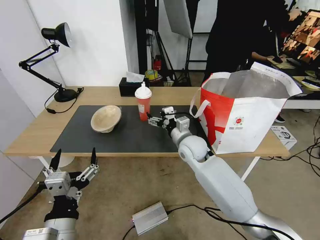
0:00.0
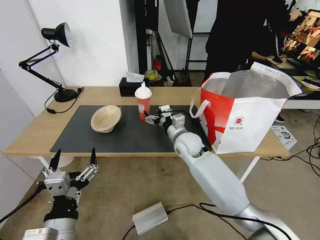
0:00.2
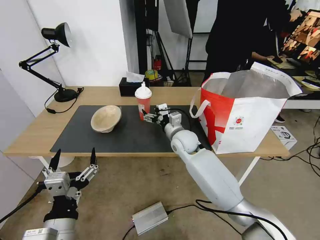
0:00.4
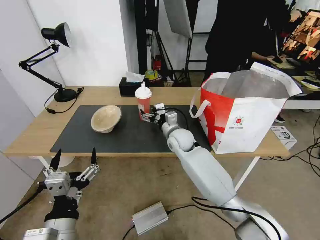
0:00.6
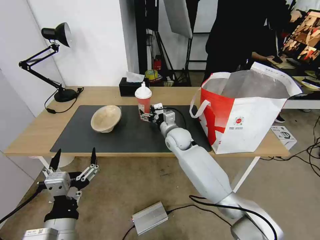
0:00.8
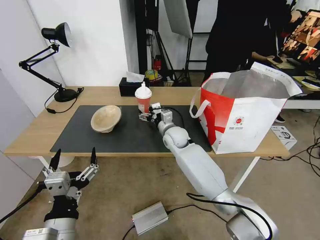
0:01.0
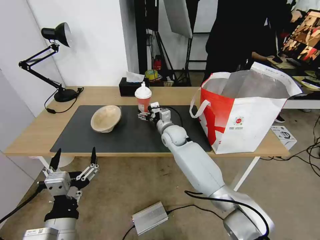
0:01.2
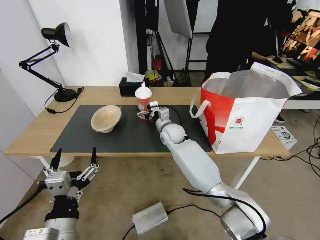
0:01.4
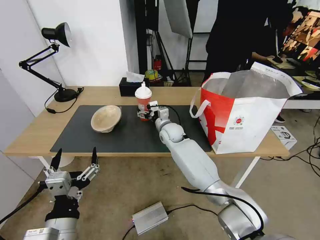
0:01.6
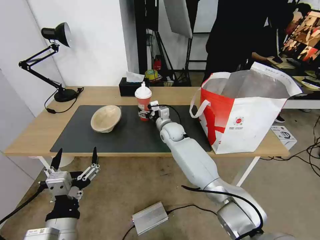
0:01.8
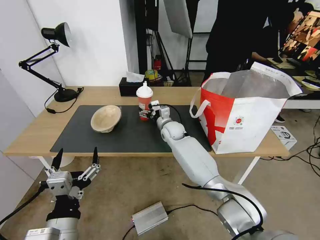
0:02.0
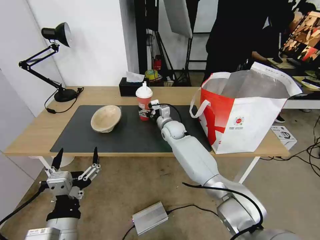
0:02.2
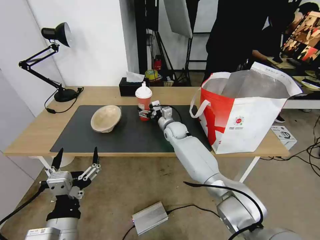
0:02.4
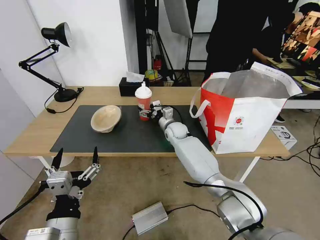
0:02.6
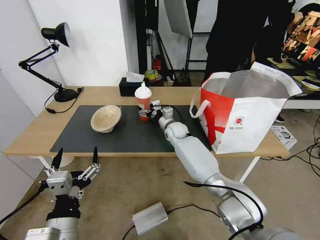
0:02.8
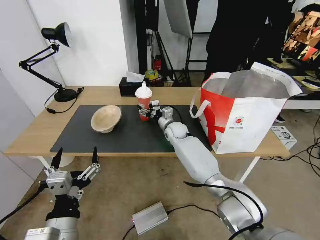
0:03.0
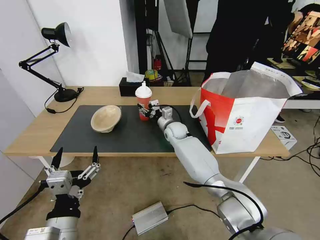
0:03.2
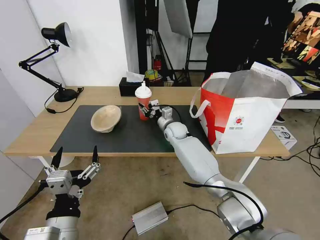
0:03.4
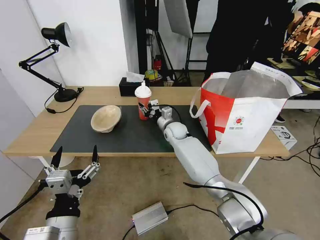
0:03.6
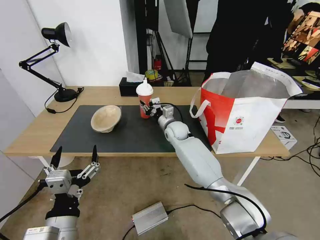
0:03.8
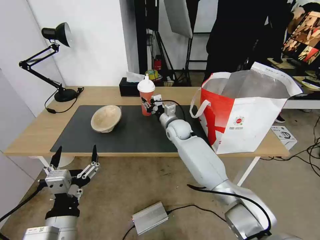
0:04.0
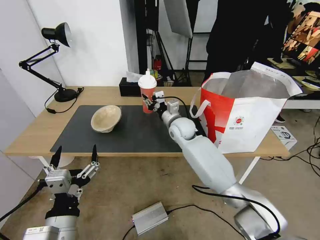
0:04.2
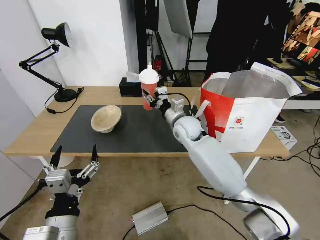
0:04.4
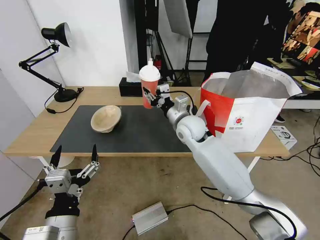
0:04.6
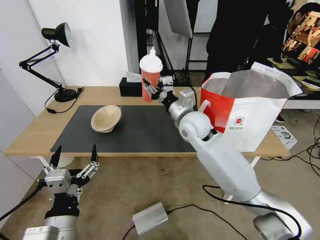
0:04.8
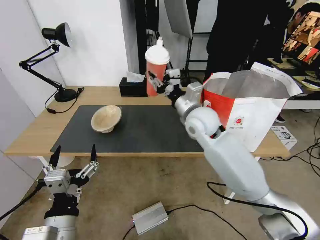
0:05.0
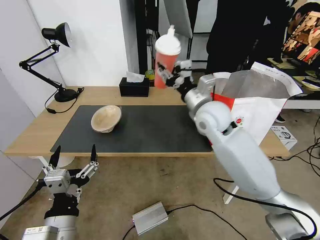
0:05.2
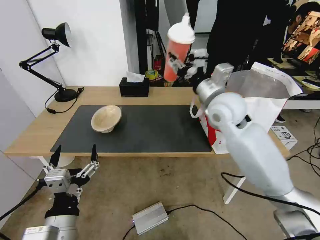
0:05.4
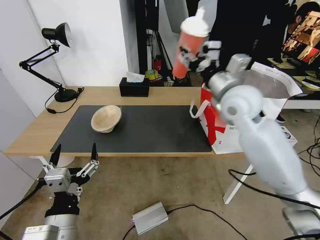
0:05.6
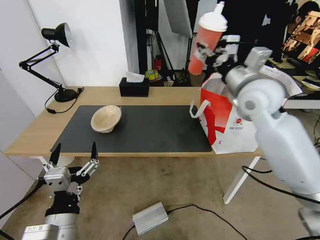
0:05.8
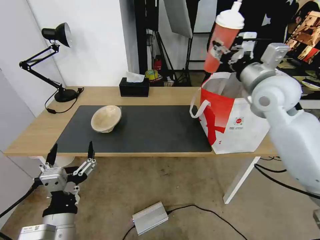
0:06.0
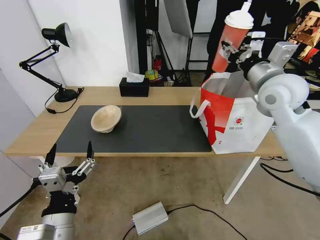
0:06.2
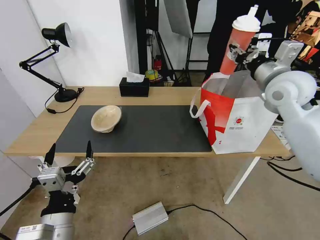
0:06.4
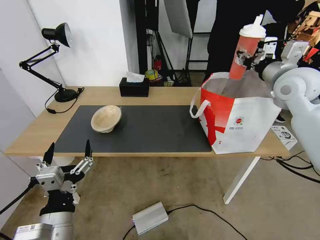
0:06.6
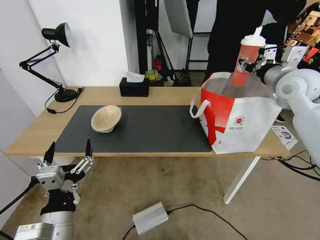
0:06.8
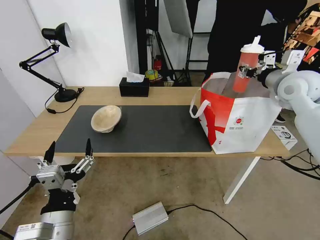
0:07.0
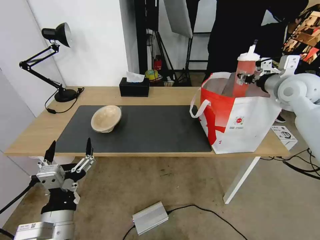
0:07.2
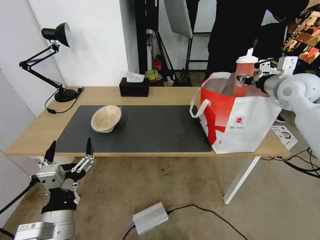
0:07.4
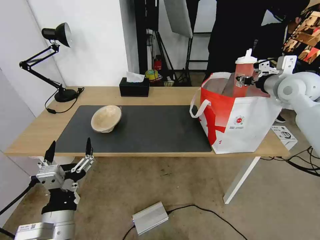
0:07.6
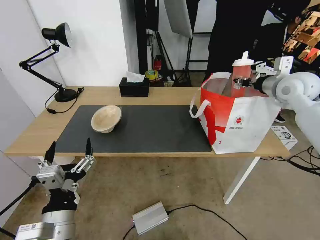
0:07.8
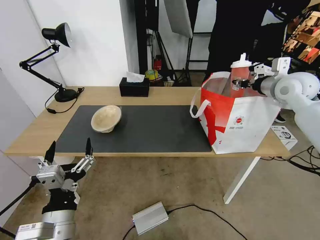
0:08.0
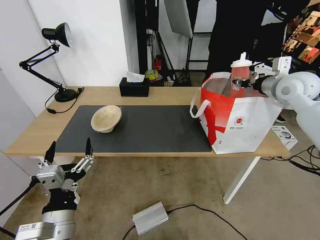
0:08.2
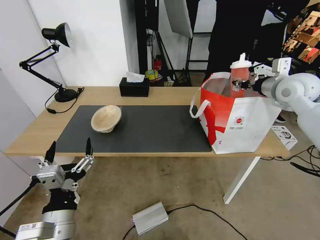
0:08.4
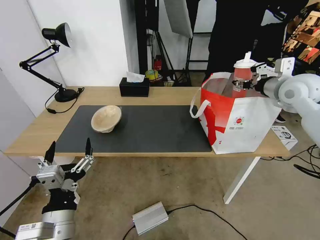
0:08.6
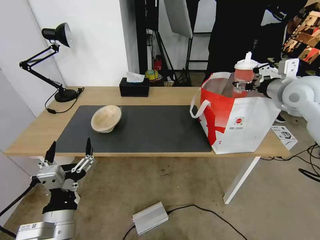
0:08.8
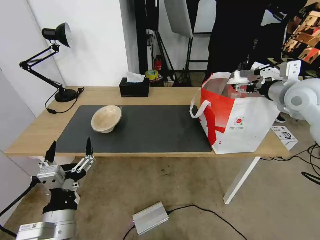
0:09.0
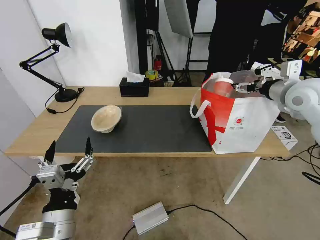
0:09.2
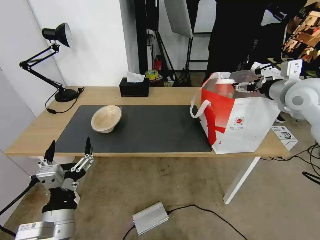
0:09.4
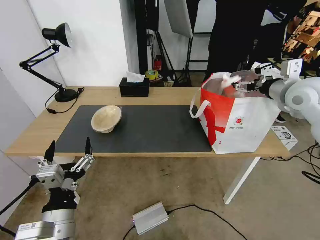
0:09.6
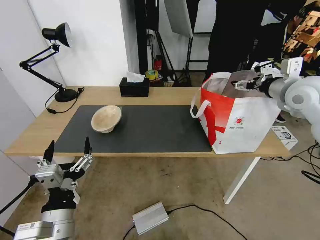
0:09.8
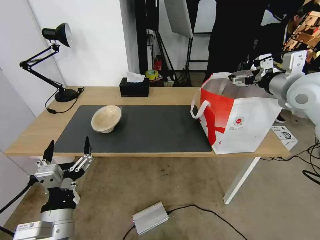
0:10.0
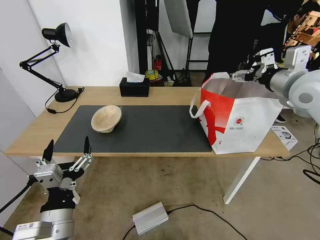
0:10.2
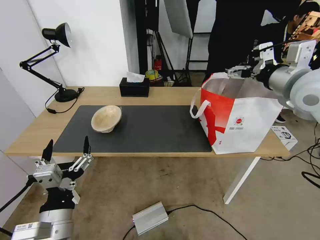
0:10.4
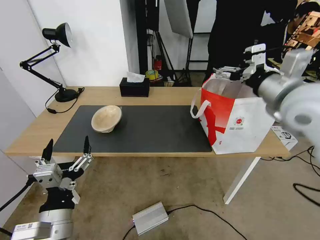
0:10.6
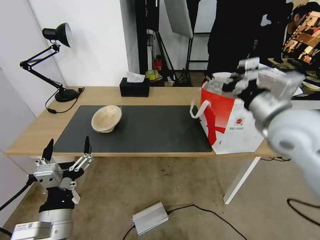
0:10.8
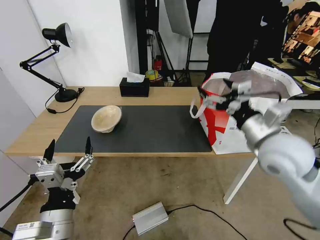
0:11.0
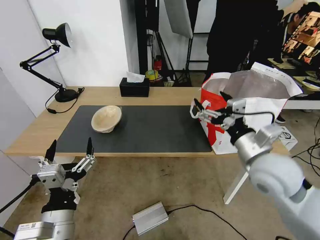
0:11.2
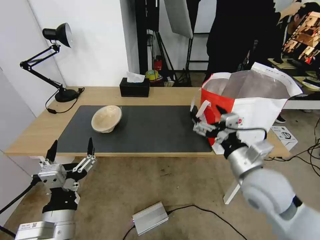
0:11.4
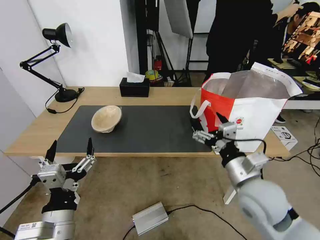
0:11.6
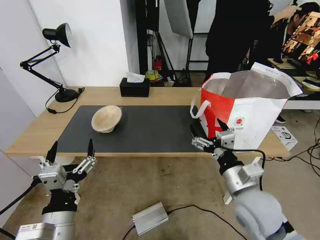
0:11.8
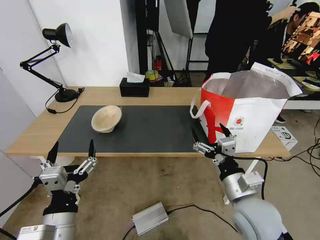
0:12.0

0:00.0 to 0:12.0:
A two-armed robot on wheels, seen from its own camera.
Task of the whole recording: Pick up the trash from the table and place it into the takeout bag.
0:00.0 to 0:01.6: The right gripper heads forward and to the left, covering some 10 cm.
0:01.6 to 0:03.0: The grippers move only a little.
0:03.0 to 0:04.4: The right gripper is displaced upward and backward by approximately 10 cm, and closes.
0:04.4 to 0:06.0: The right gripper goes about 25 cm to the right and upward.
0:06.0 to 0:07.6: The right gripper goes about 15 cm to the right and forward.
0:07.6 to 0:09.0: The right gripper opens up.
0:09.0 to 0:10.4: The right gripper is displaced backward, to the left and upward by about 10 cm.
0:10.4 to 0:12.0: The right gripper moves downward, backward and to the left, approximately 30 cm.

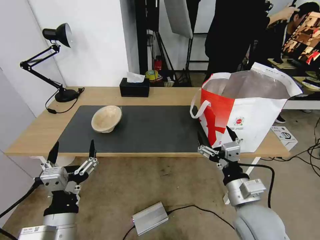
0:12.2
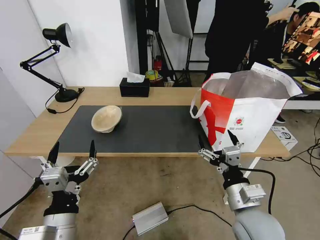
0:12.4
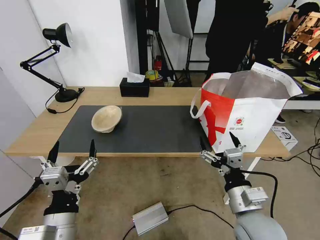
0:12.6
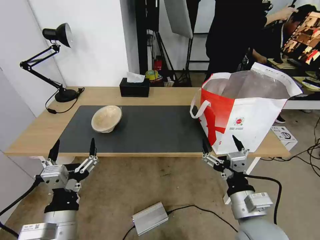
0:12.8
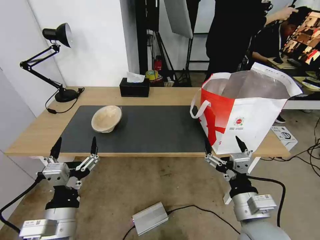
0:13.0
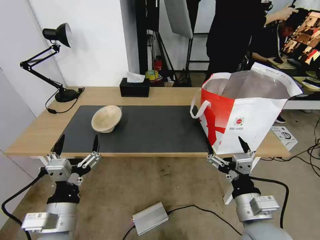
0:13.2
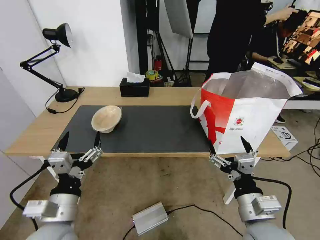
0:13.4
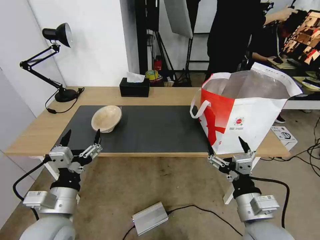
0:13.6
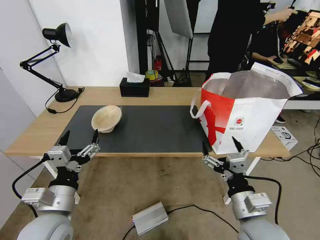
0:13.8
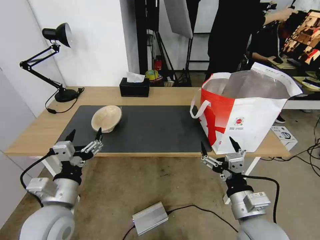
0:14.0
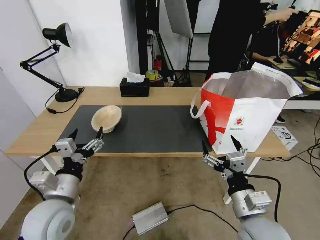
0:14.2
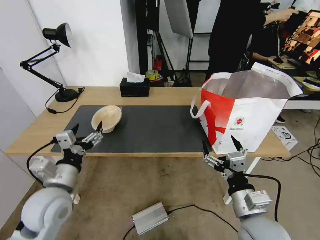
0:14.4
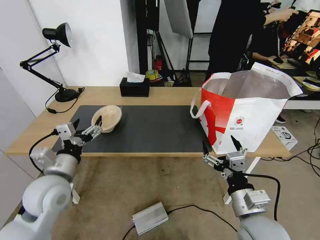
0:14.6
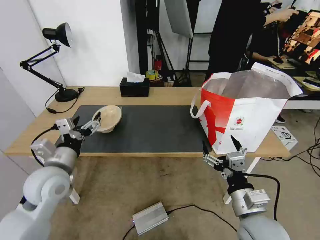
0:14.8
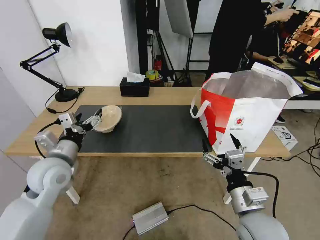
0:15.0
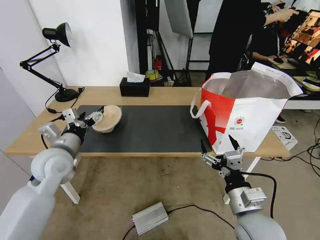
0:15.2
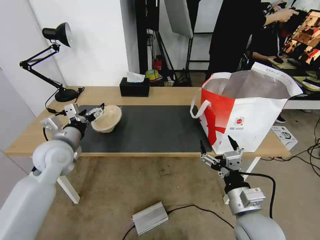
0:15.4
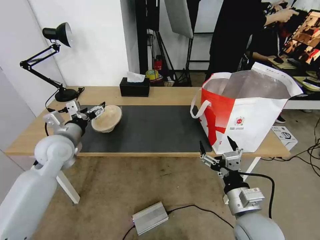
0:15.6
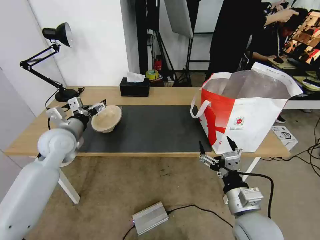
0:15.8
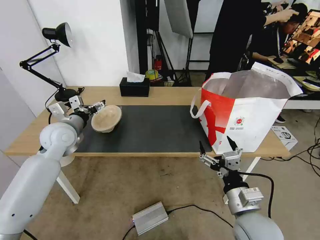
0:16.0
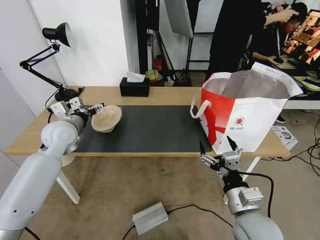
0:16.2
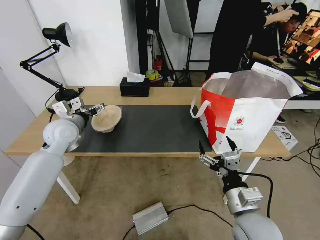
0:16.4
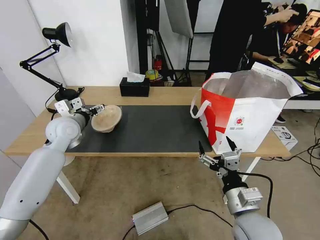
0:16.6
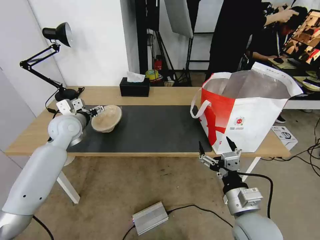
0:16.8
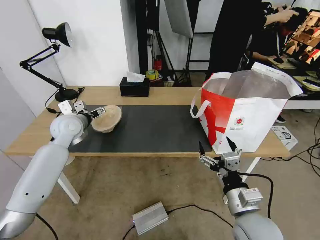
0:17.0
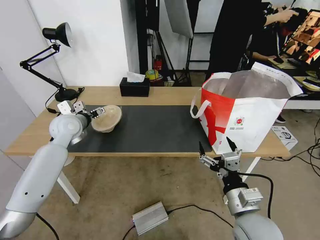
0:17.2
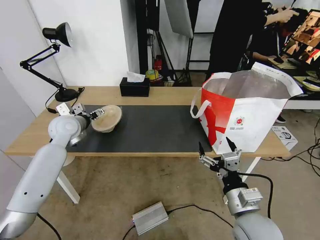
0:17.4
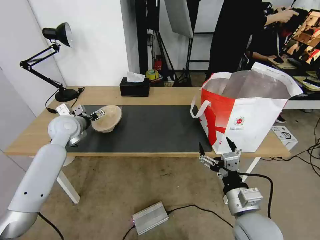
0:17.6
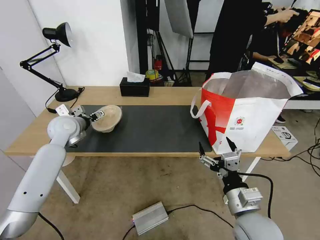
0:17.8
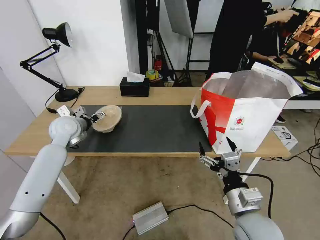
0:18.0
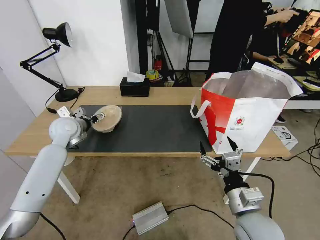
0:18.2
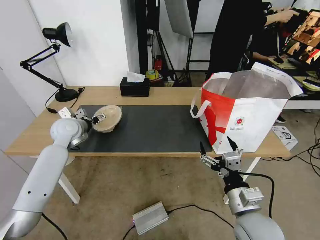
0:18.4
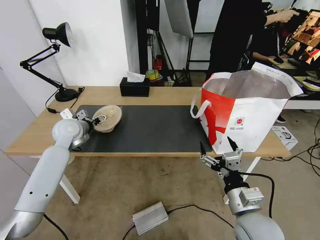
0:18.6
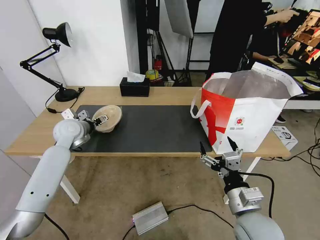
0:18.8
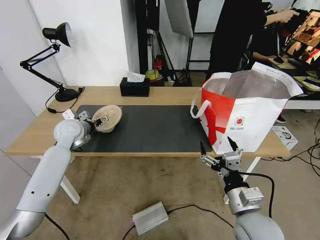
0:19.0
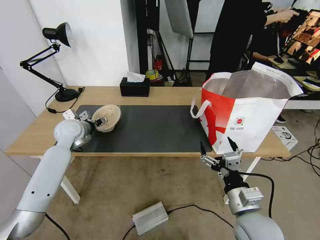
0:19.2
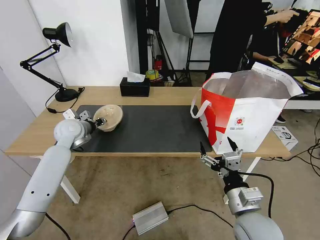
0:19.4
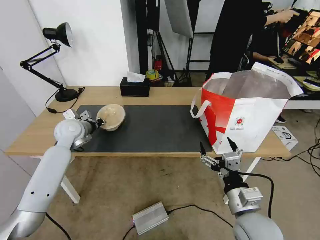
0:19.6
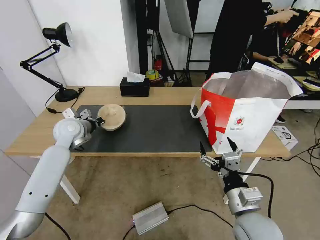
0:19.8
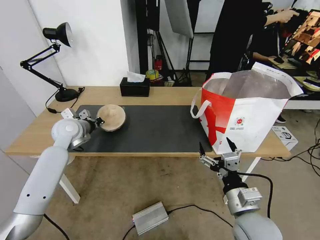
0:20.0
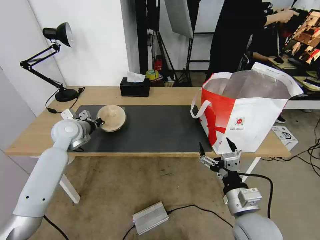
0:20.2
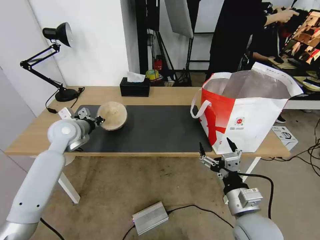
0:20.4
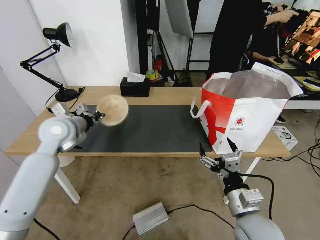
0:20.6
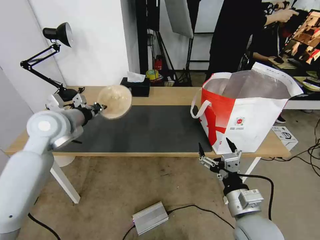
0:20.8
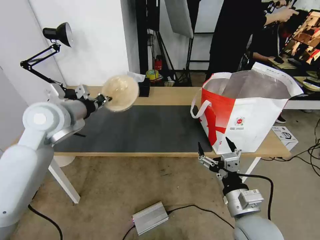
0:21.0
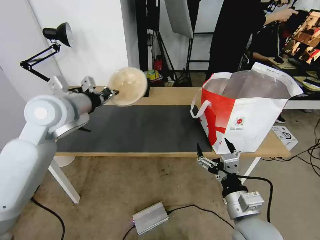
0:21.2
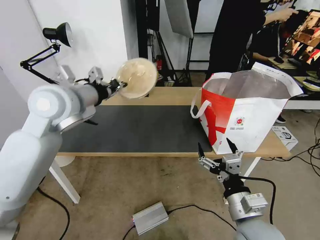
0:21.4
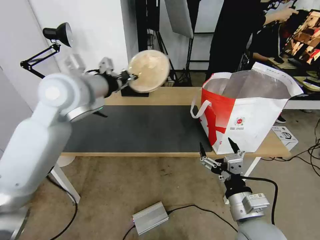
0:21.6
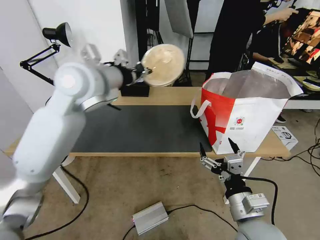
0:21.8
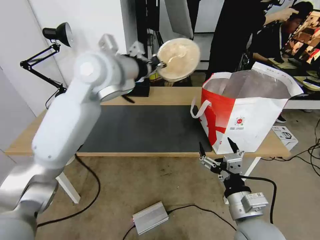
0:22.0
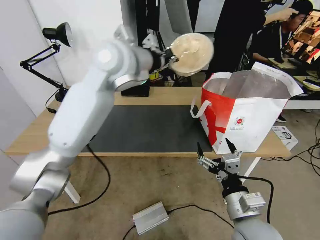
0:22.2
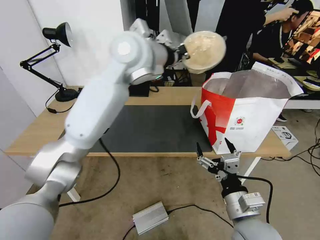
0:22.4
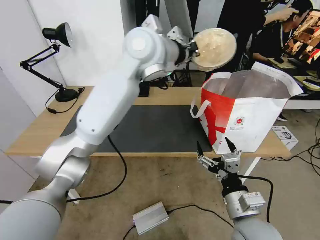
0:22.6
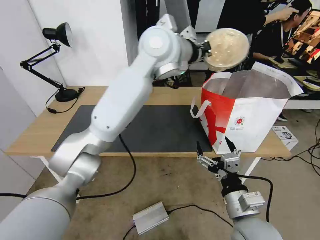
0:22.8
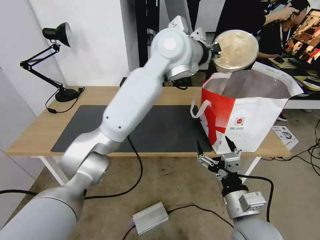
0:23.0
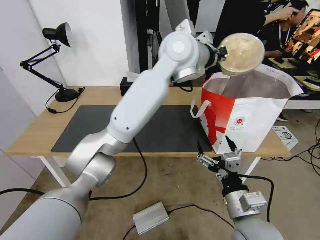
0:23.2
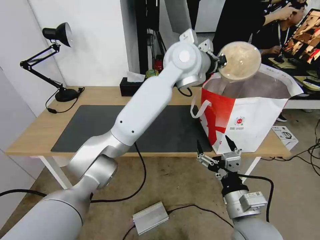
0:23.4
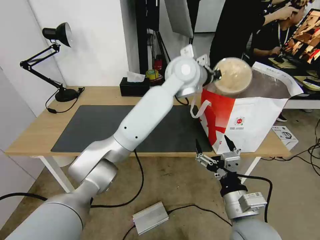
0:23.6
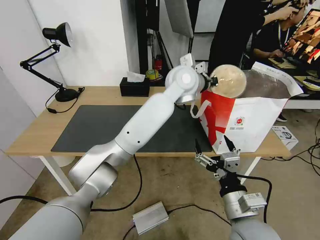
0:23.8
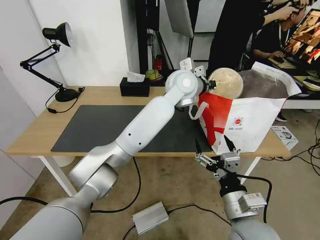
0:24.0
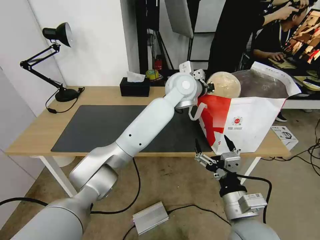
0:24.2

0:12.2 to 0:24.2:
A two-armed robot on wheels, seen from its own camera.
Task of the whole recording: Pick up the trash from the table and place it into the takeout bag.
0:12.2 to 0:13.8: The left gripper travels forward by roughly 5 cm.
0:13.8 to 0:15.2: The left gripper moves forward, about 15 cm.
0:15.2 to 0:16.6: The left gripper travels forward by approximately 10 cm.
0:16.6 to 0:18.2: The grippers move only a little.
0:18.2 to 0:19.8: The left gripper closes up.
0:19.8 to 0:21.2: The left gripper shifts some 20 cm upward and backward.
0:21.2 to 0:22.6: The left gripper is displaced to the right and upward by some 25 cm.
0:22.6 to 0:24.2: The left gripper shifts some 15 cm downward and to the right.
